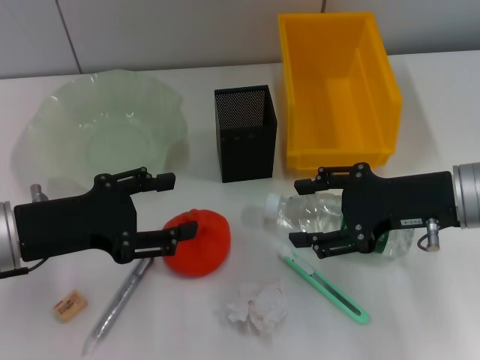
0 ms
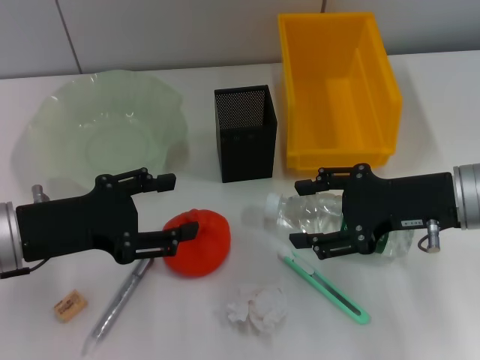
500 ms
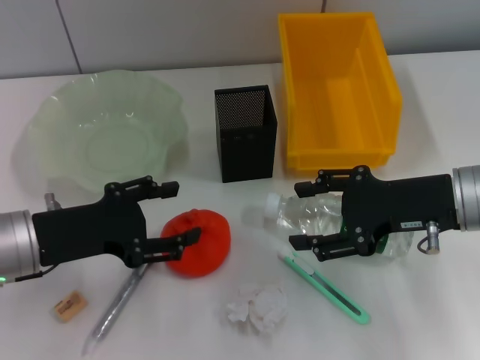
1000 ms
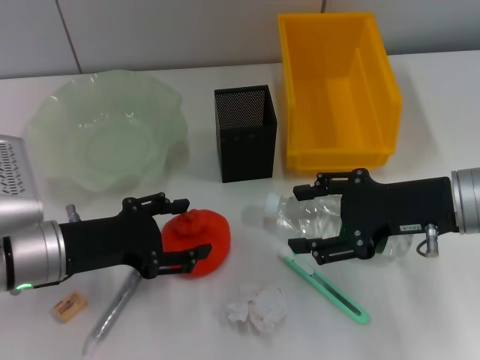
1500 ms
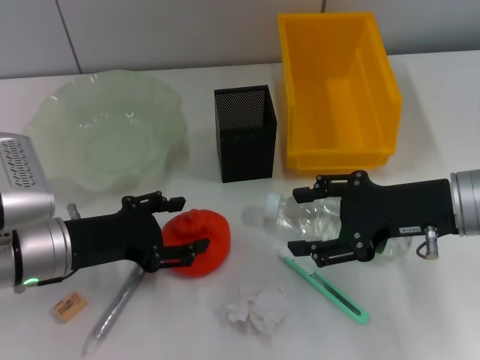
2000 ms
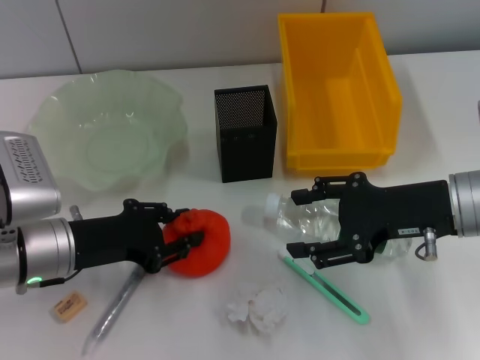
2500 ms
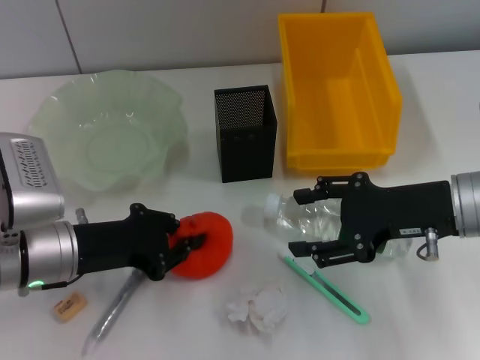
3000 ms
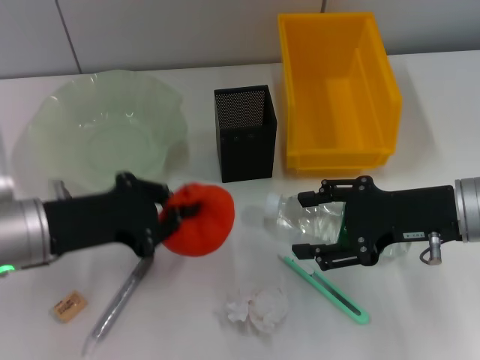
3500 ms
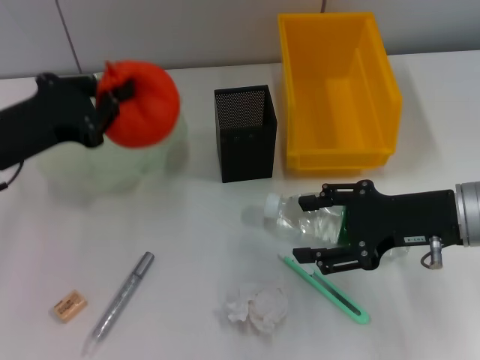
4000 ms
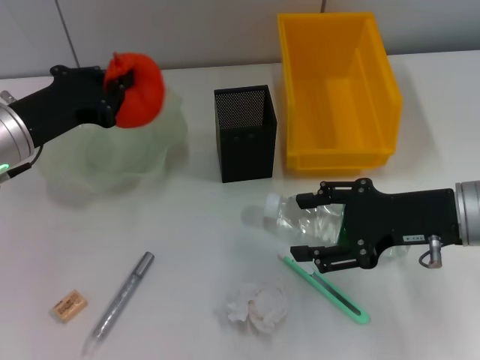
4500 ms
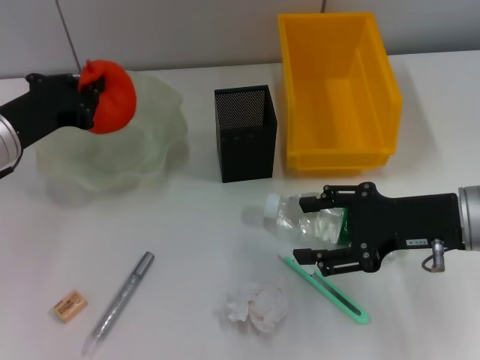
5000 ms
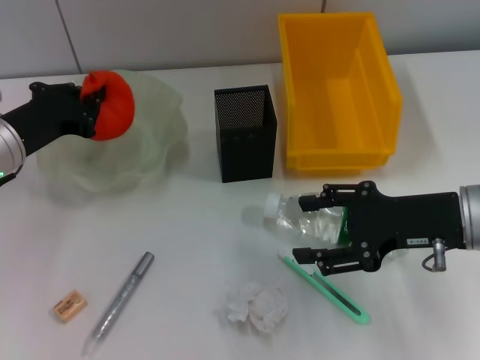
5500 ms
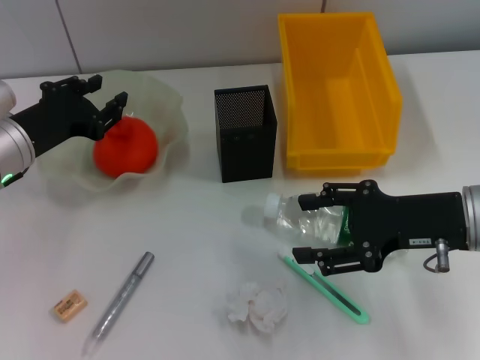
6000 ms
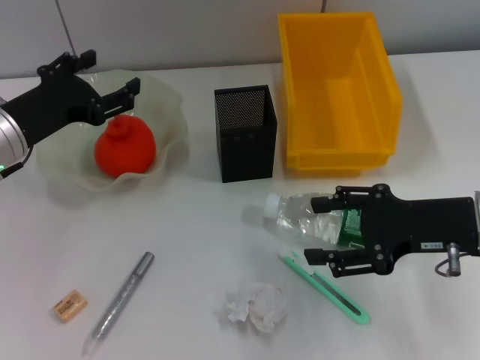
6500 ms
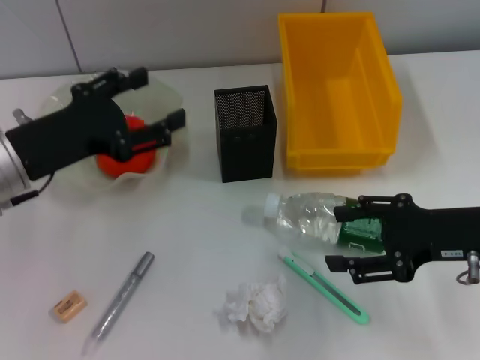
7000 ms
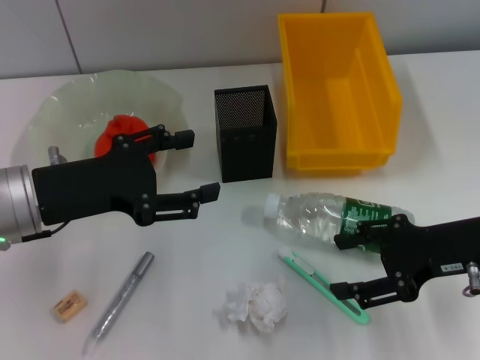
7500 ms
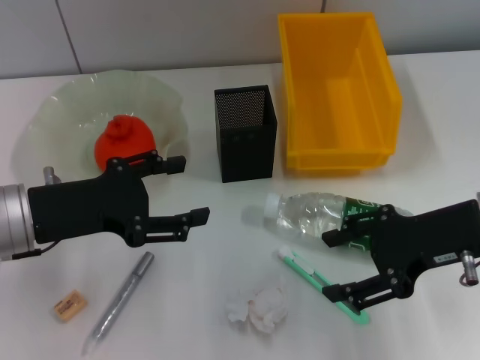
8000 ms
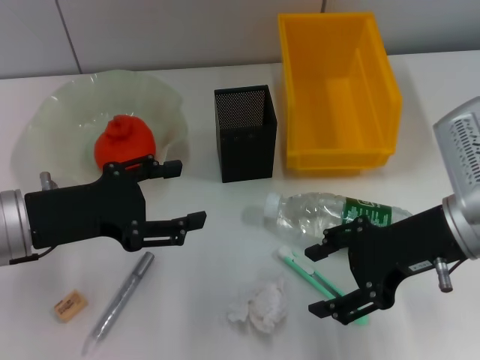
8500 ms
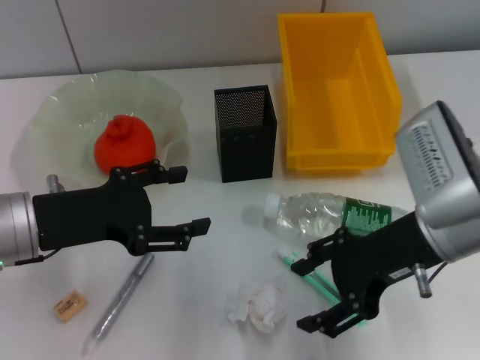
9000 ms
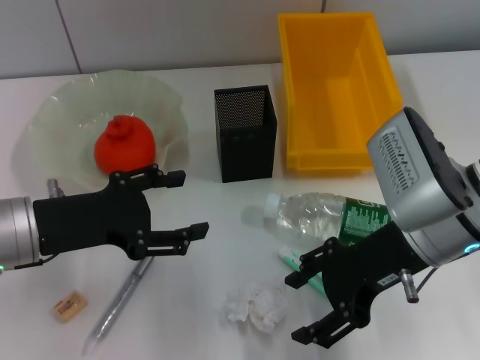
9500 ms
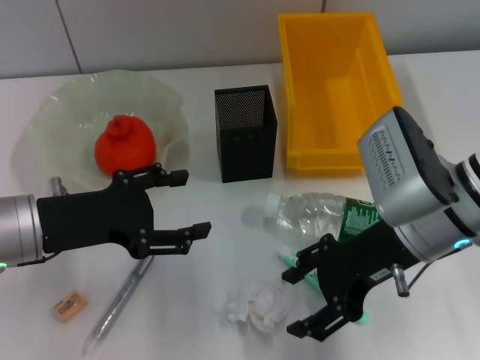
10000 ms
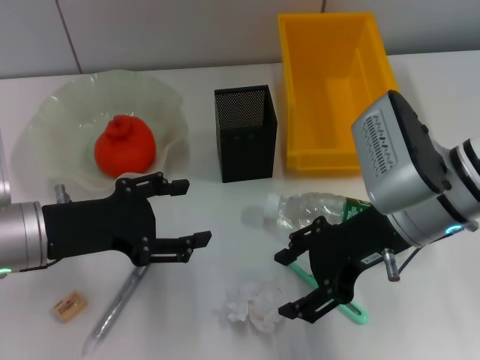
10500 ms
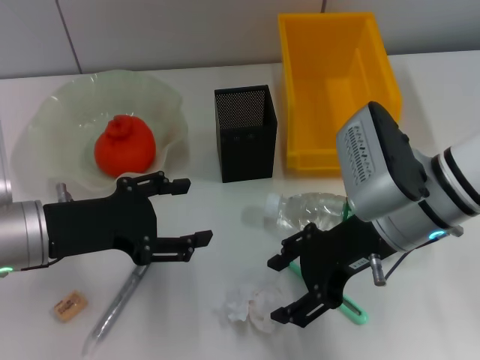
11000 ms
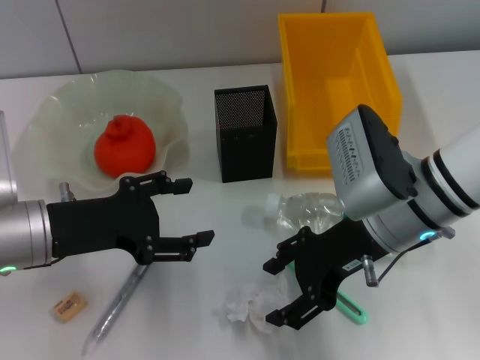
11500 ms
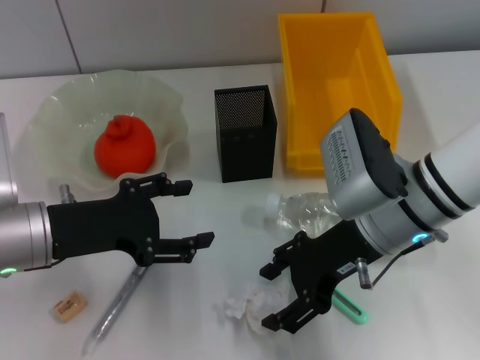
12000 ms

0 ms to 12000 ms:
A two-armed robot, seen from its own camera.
Step, 0 ms to 2500 ms: Grab the orange with the left hand.
Step, 3000 ms to 6000 ms: Place the orange into the fruit bowl with the left hand.
0 ms to 2000 ms: The left gripper changes place by roughly 5 cm.
2000 ms to 4000 ms: The left gripper is displaced upward by about 10 cm, and closes up.
4000 ms to 6000 ms: The left gripper shifts approximately 5 cm forward.
6000 ms to 8000 ms: The left gripper moves backward, roughly 10 cm, and opens its fingers.
8000 ms to 10000 ms: The right gripper shifts approximately 5 cm to the left.
10000 ms to 12000 ms: The grippers move only a little.

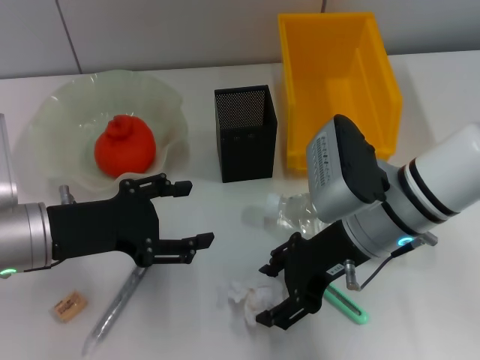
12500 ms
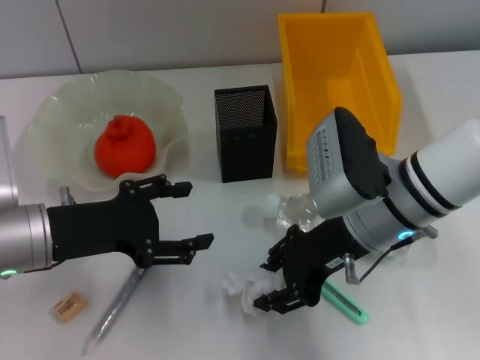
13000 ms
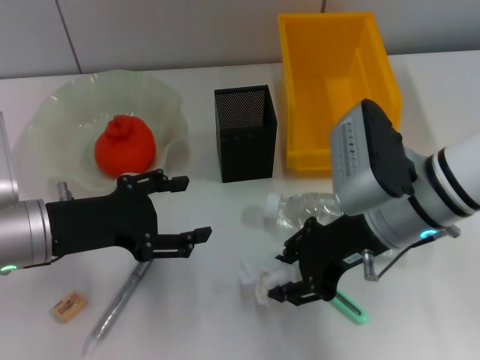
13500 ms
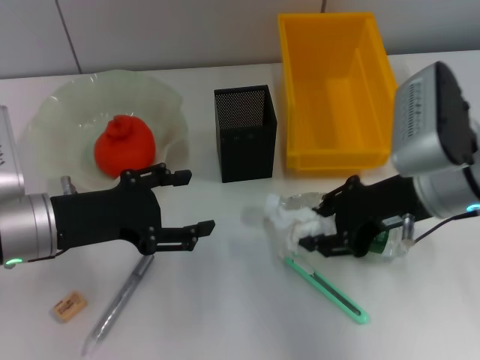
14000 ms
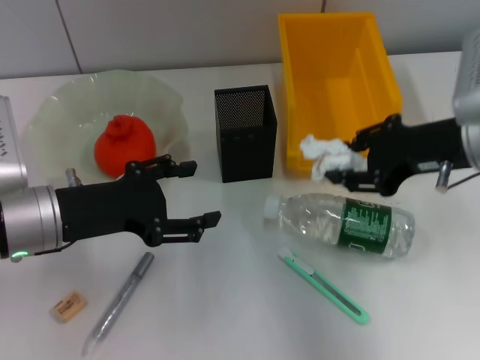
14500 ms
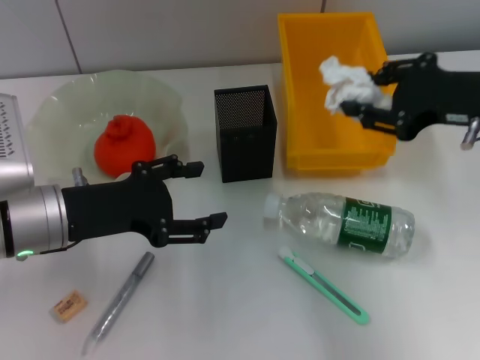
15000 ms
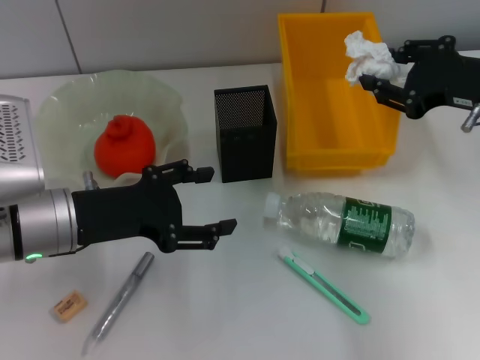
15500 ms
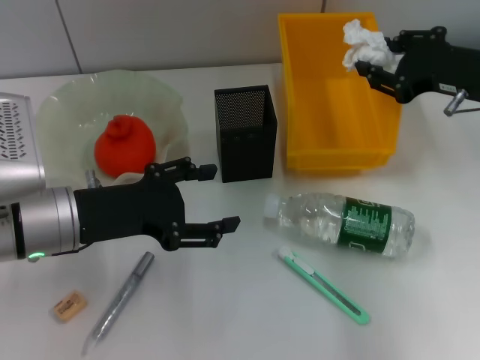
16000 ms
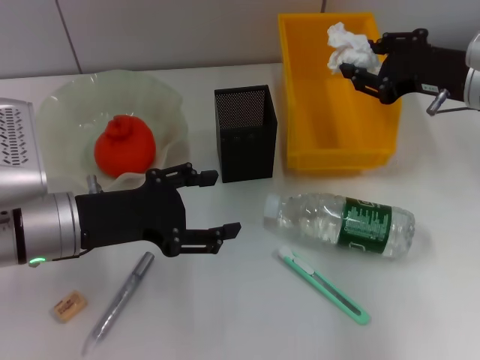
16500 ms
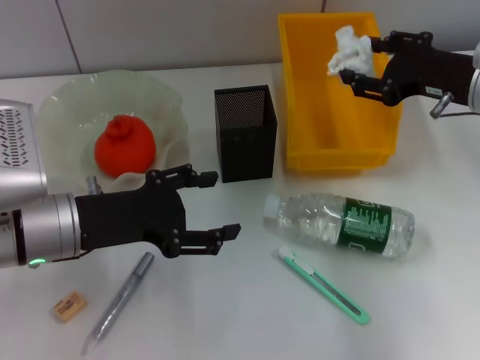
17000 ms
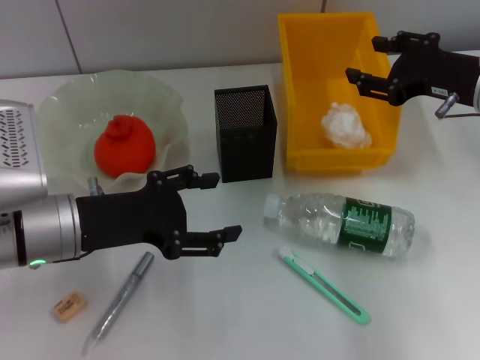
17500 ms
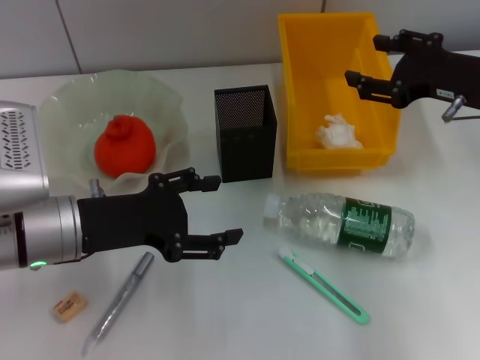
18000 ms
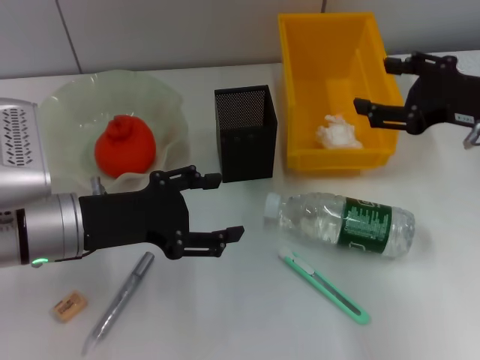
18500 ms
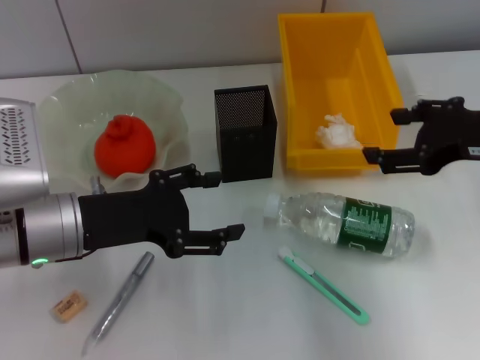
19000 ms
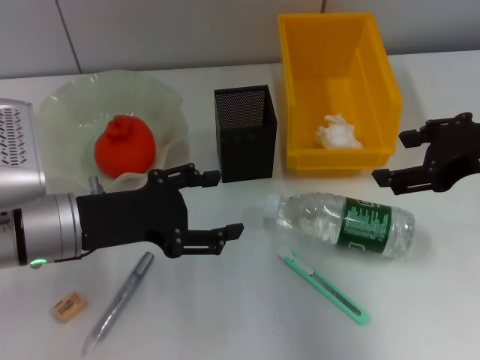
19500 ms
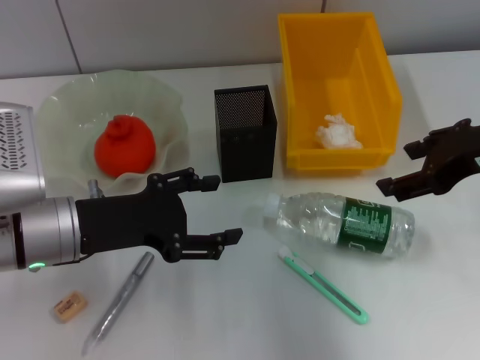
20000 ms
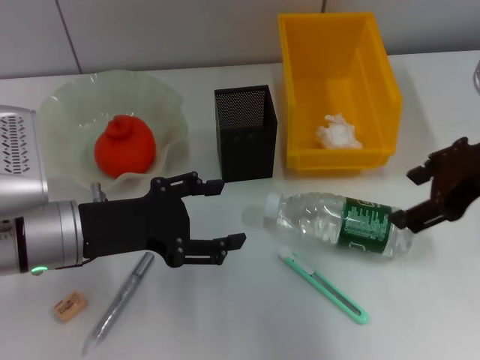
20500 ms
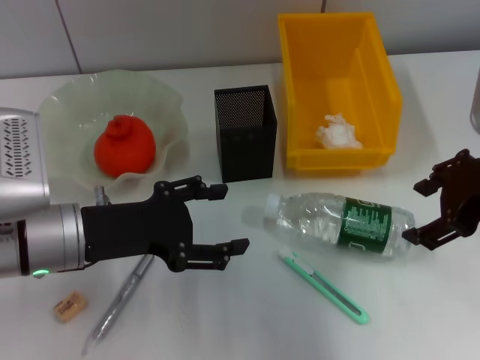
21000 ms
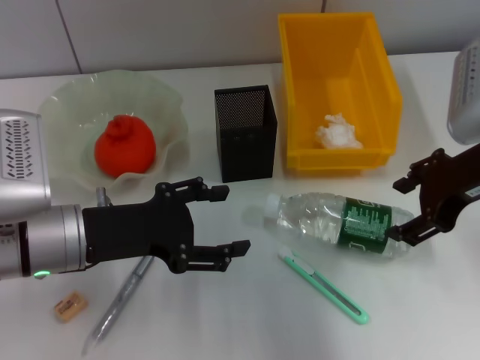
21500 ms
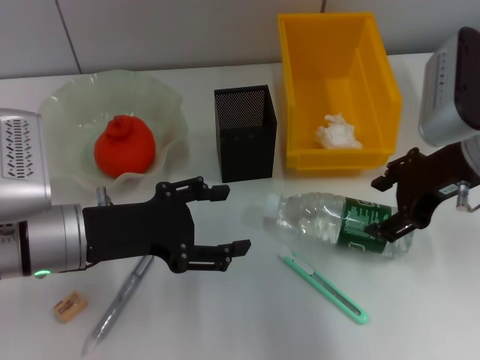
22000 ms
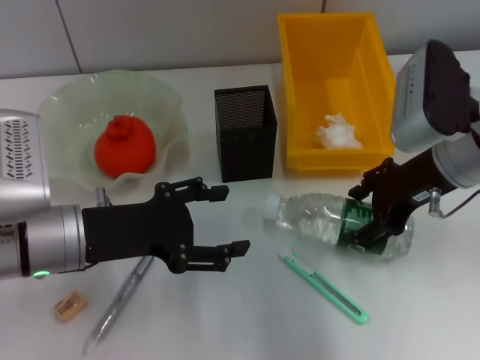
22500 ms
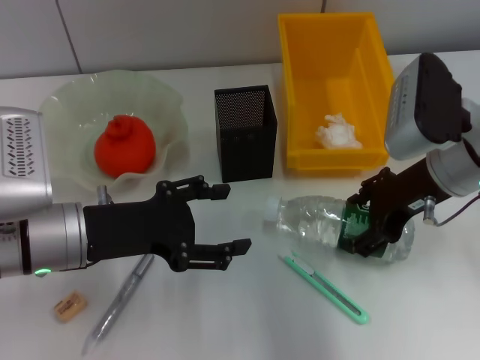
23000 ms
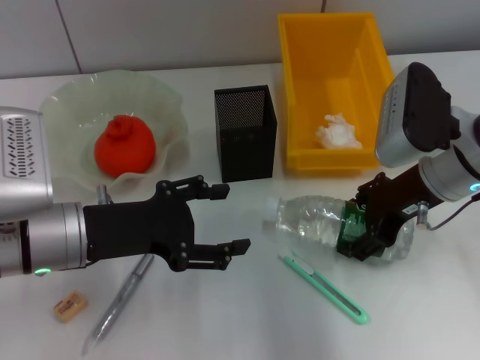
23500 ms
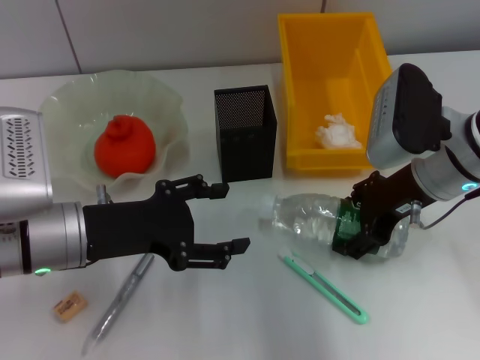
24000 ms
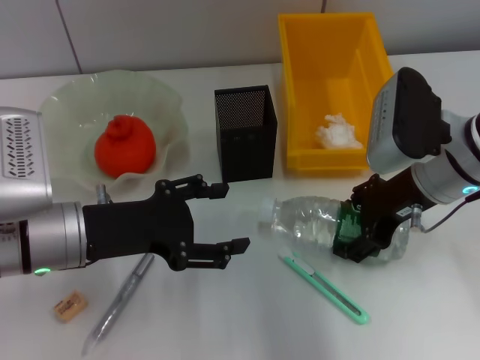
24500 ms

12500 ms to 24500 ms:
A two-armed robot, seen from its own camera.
Step, 13000 ms to 17500 ms: Place the paper ball into the trash can with the right hand.
Step, 18000 ms to 23500 ms: Grab the water bottle with the right hand.
12500 ms to 14500 ms: The right gripper moves to the right and upward, roughly 10 cm, and closes up.
14500 ms to 16500 ms: The right gripper shifts roughly 5 cm forward.
16500 ms to 18500 ms: The right gripper heads backward, covering some 5 cm, and opens its fingers.
18500 ms to 20500 ms: The right gripper travels upward by approximately 5 cm.
20500 ms to 22500 ms: The right gripper shifts roughly 5 cm downward.
22500 ms to 24500 ms: The grippers move only a little.

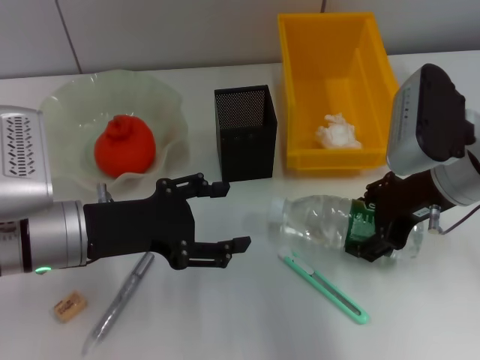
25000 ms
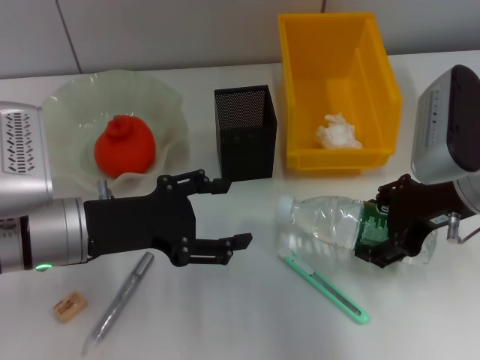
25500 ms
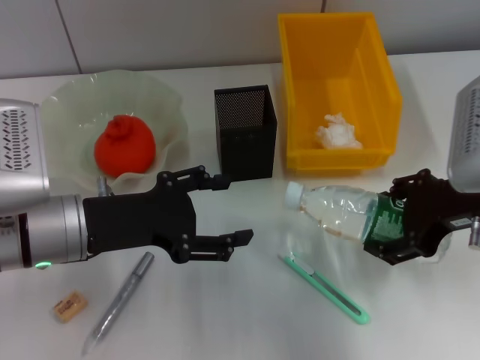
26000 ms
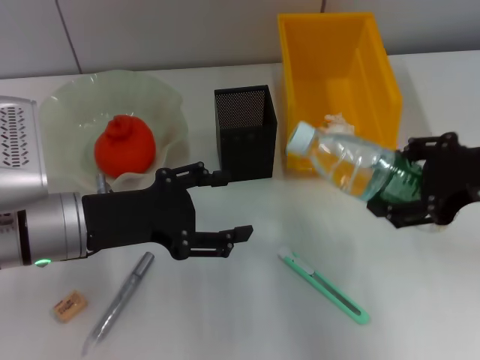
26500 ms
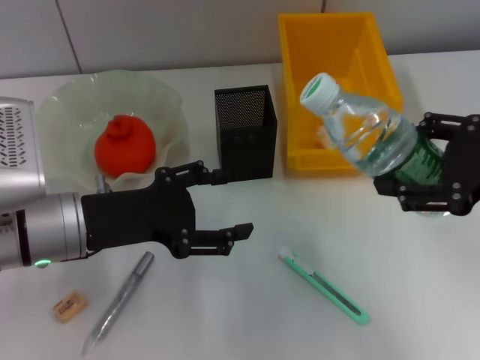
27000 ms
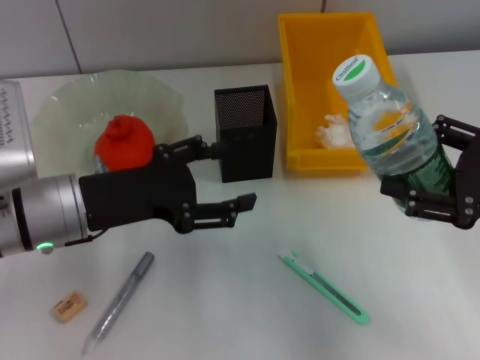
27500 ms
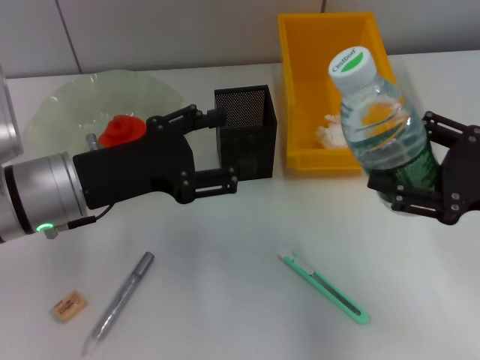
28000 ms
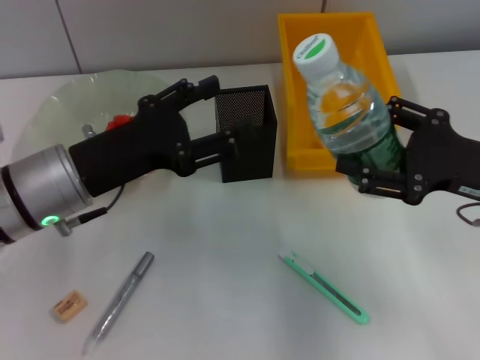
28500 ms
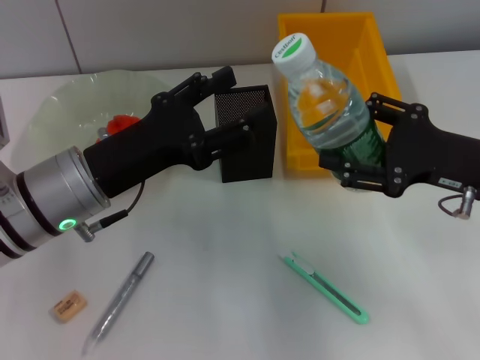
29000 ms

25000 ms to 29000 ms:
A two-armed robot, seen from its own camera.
25000 ms to 27000 ms: The right gripper heads backward and to the right, covering approximately 10 cm.
27000 ms to 29000 ms: The right gripper shifts approximately 5 cm downward.
